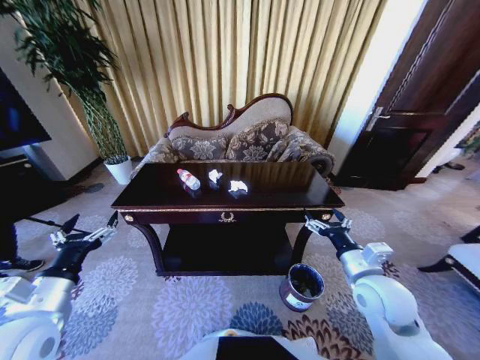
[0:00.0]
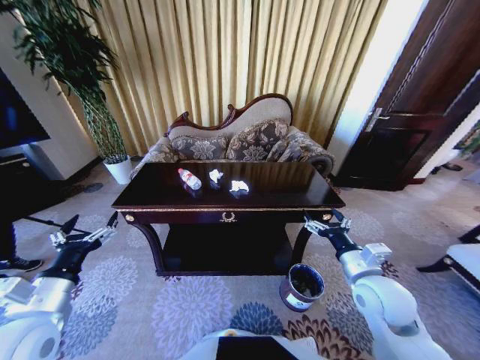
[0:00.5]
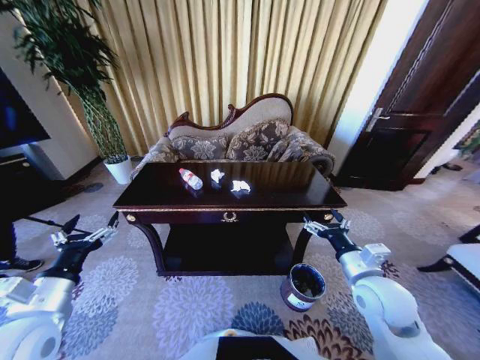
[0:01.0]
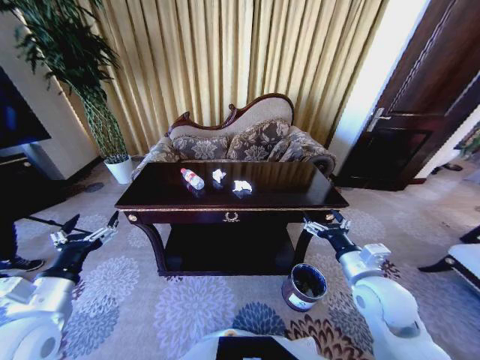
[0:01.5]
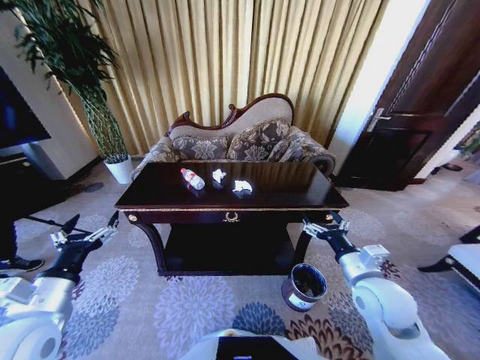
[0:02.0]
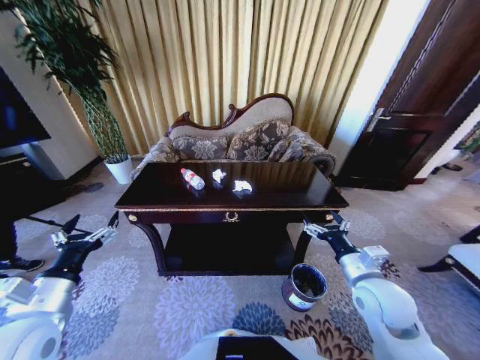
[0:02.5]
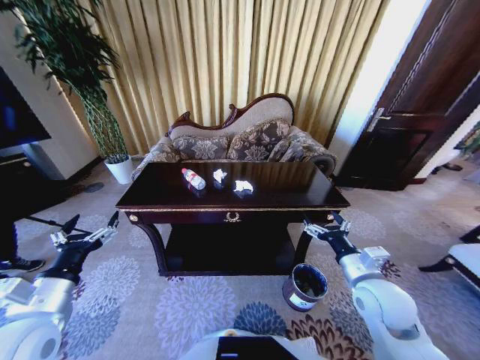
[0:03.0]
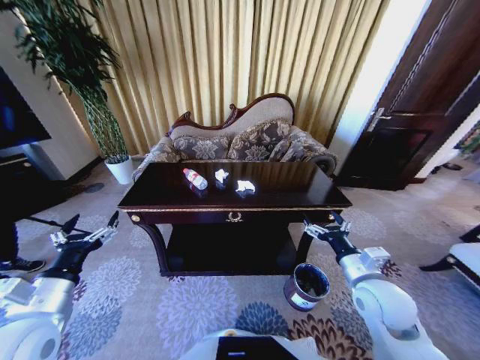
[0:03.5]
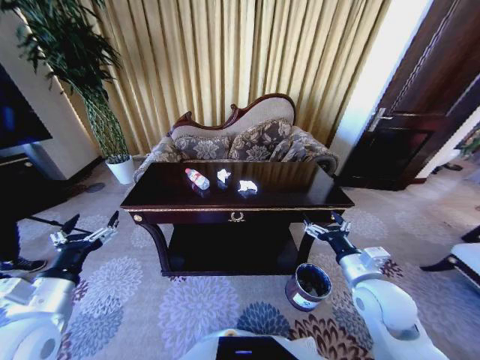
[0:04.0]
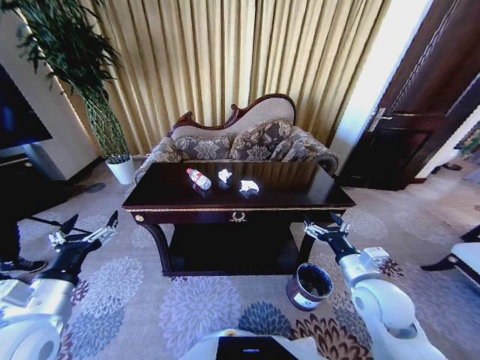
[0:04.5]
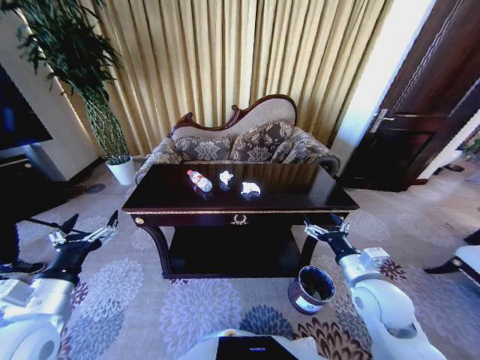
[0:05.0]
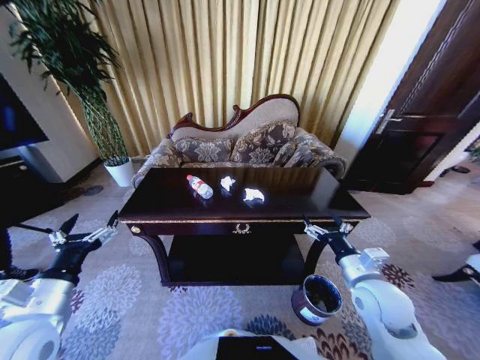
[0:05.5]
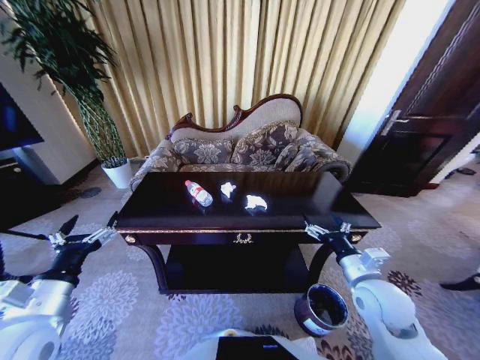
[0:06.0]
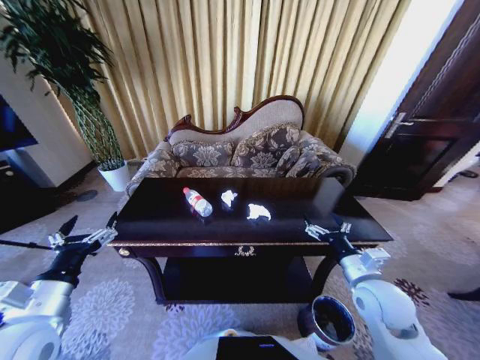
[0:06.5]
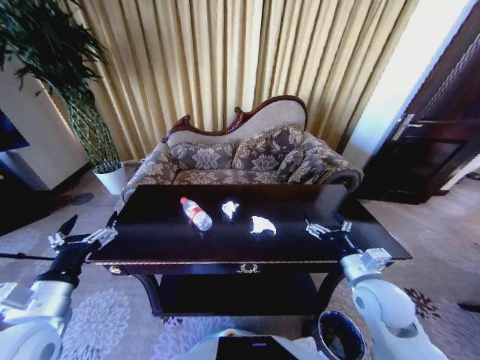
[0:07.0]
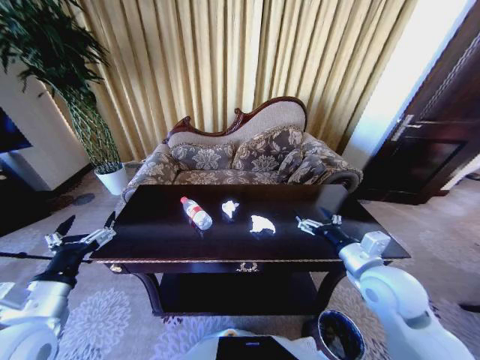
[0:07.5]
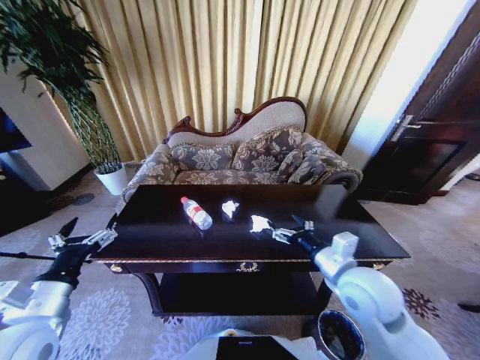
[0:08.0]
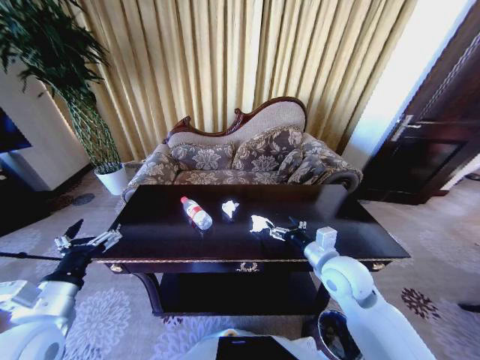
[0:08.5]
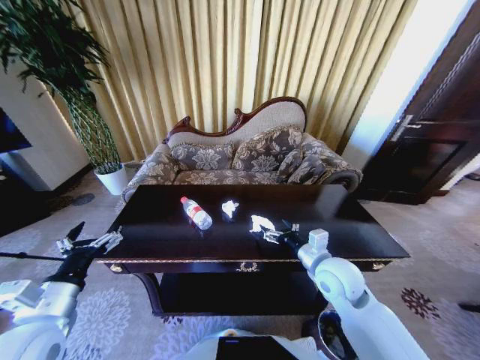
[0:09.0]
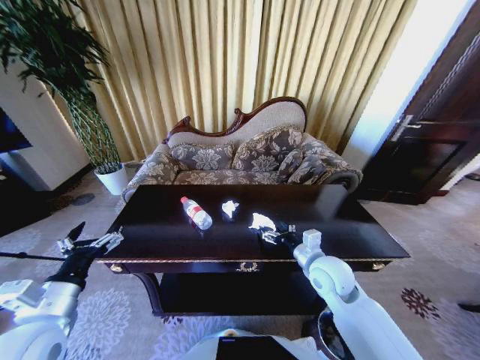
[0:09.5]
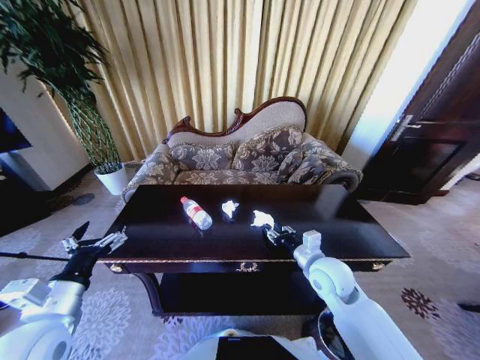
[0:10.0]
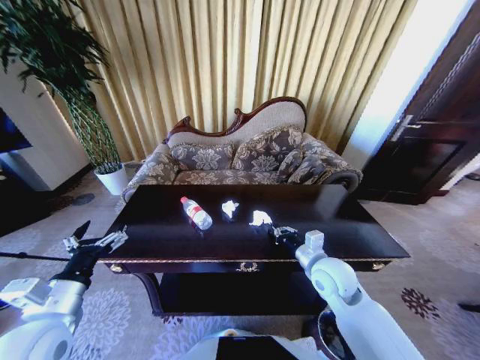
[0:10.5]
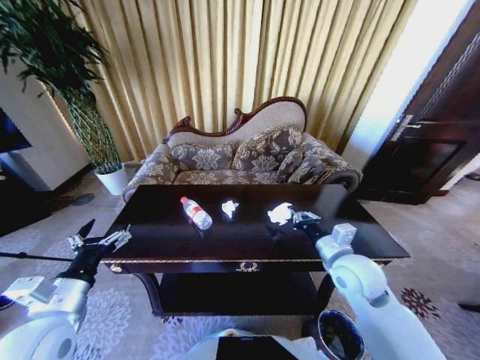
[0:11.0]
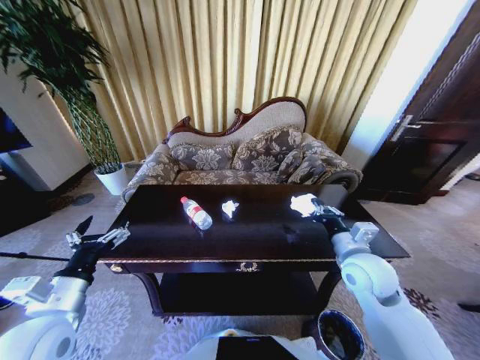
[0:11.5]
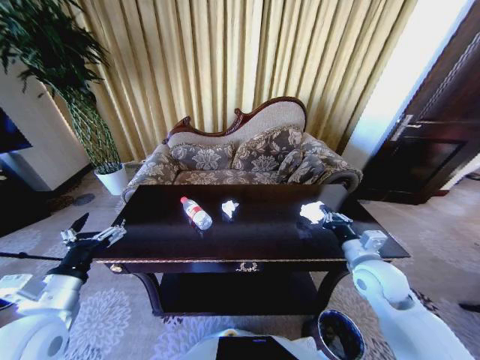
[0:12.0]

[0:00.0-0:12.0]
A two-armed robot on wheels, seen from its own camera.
Task of the whole recording: Move to the front of the table and place the trash on the table into the trash bin.
0:00.0 to 0:04.0: Both grippers stay put.
0:06.0 to 0:08.0: The right gripper moves to the left and upward, roughly 10 cm.
0:08.0 to 0:10.0: The right gripper heads downward and forward, covering some 10 cm, and closes.
0:10.0 to 0:12.0: The right gripper travels to the right by some 10 cm, and closes.

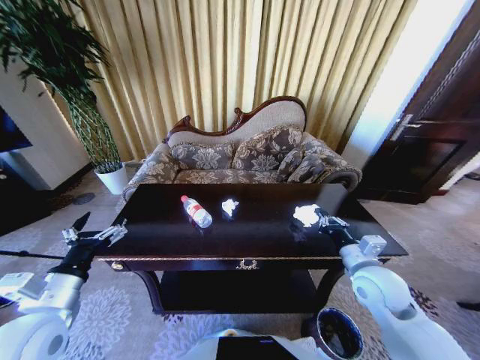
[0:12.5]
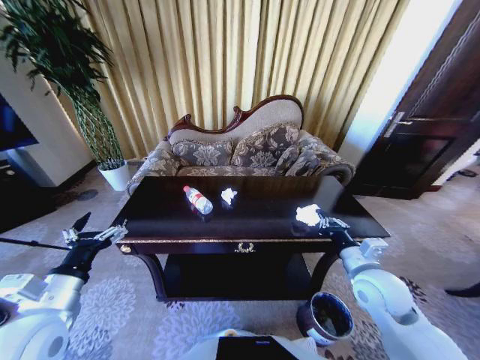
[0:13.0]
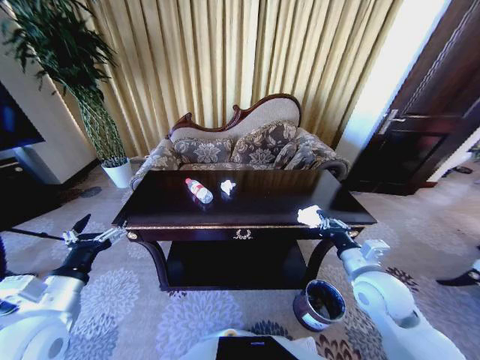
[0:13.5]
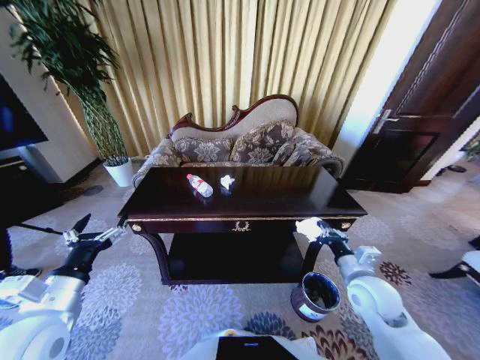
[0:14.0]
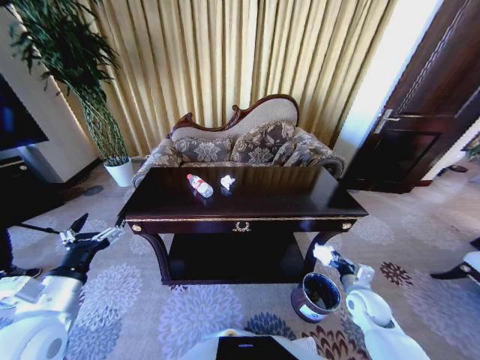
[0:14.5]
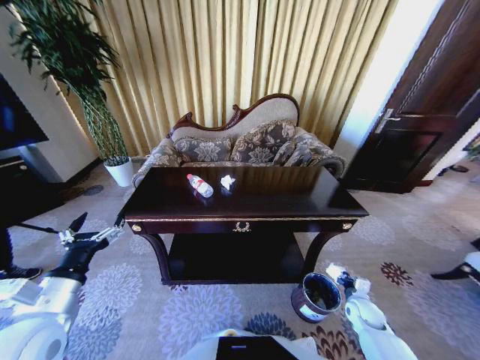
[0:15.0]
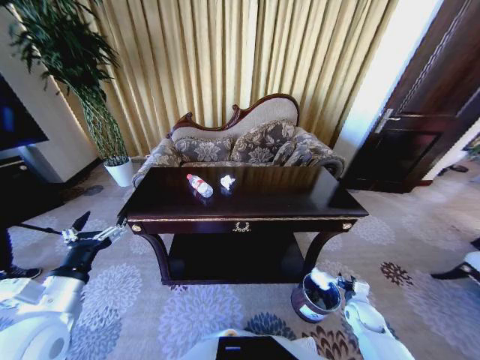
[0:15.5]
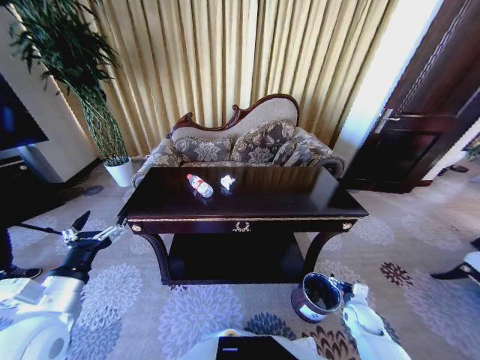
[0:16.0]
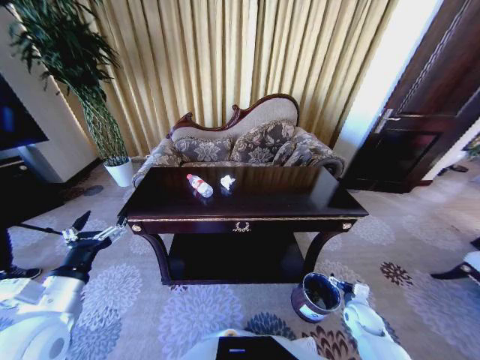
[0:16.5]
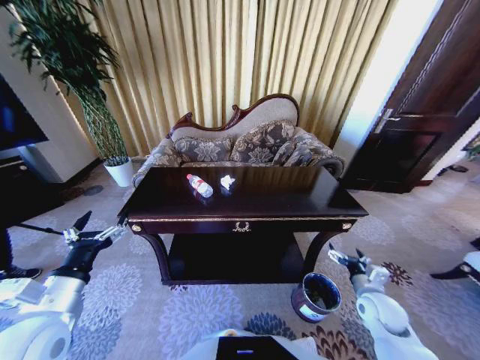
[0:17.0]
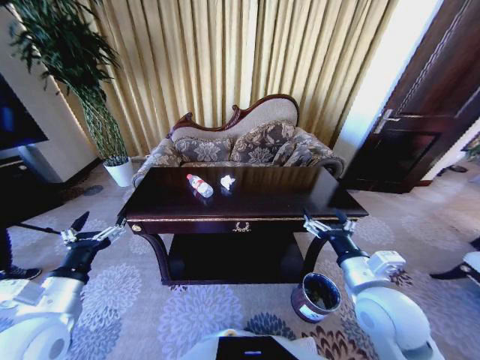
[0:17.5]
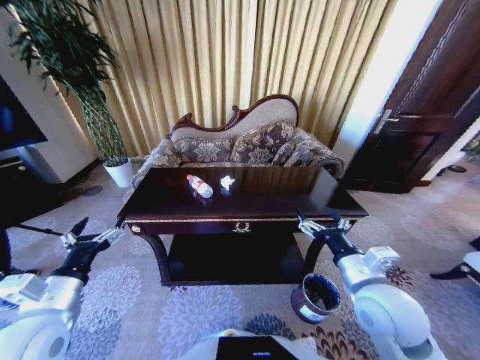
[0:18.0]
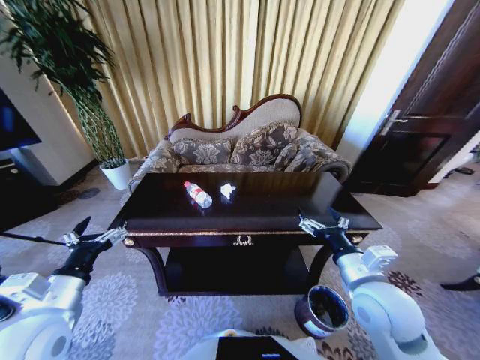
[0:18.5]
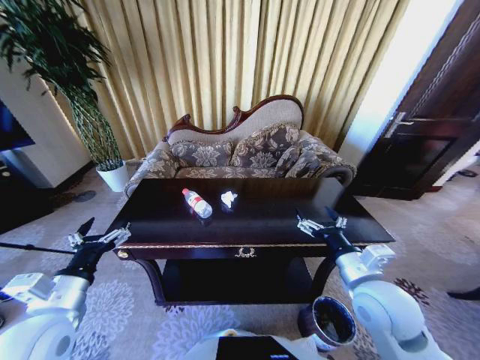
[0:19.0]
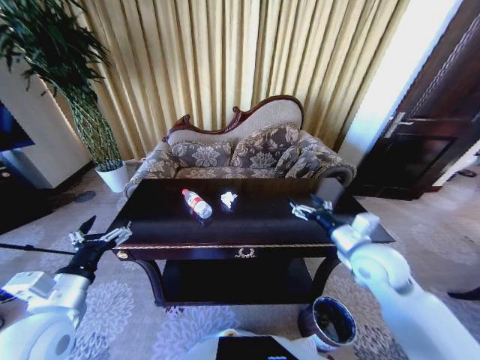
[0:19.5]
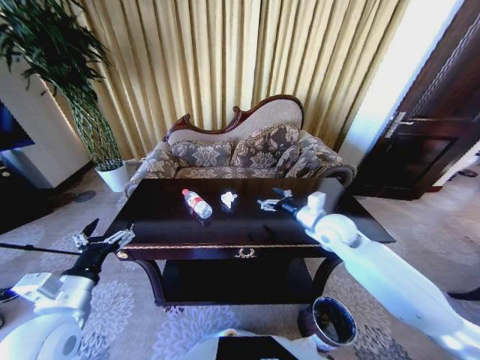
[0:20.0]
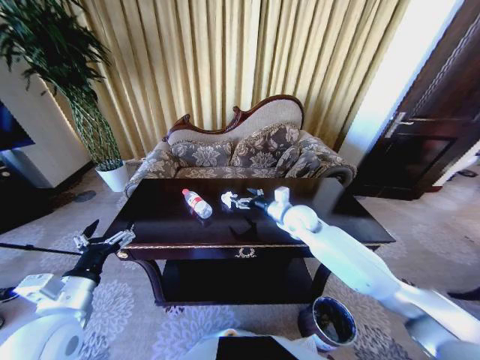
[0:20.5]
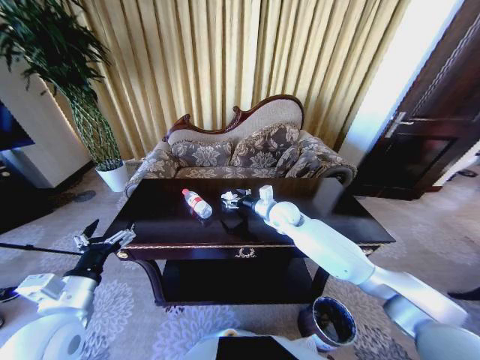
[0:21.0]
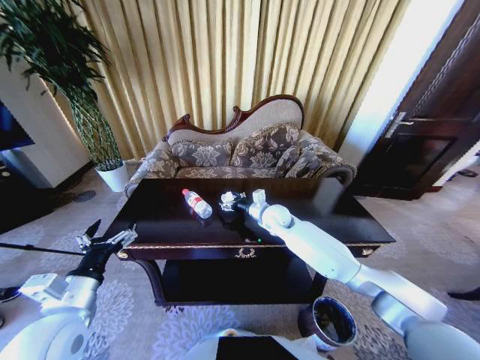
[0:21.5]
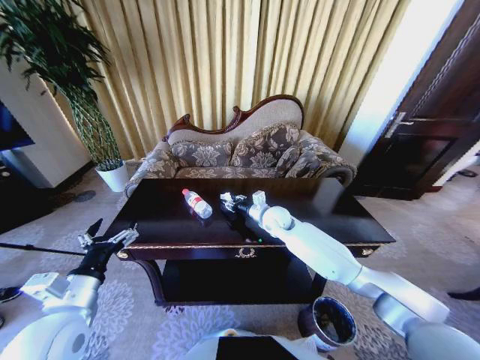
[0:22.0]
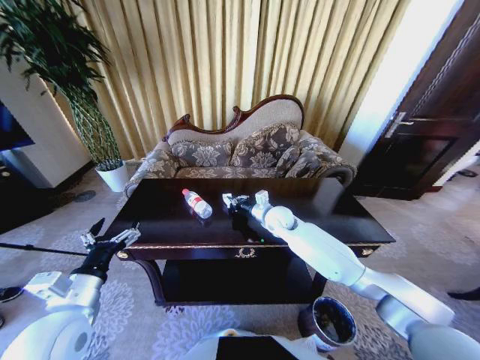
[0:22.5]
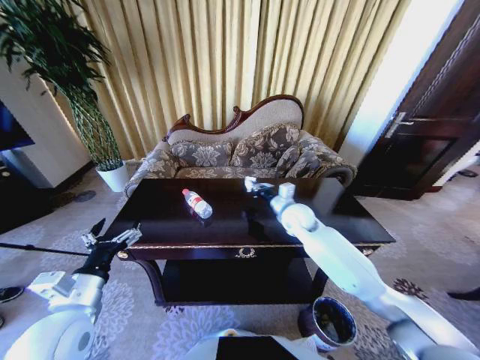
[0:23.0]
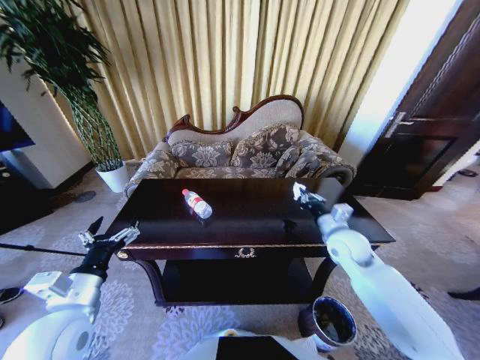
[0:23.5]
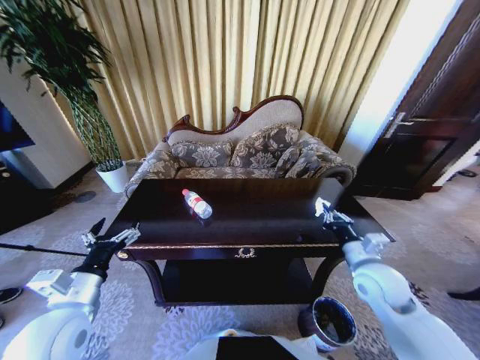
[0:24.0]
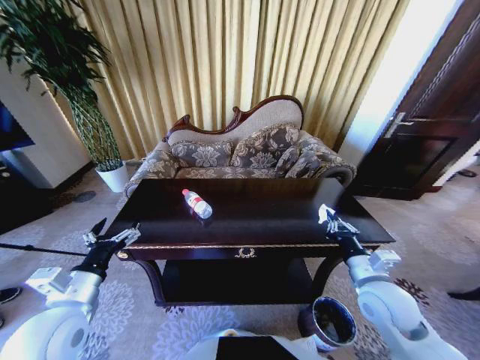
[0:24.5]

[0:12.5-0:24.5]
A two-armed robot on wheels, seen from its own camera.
Task of the whole recording: Move to the front of the table and place the trash on the table into the trash bin.
0:12.5 to 0:14.5: The right gripper heads downward and to the right, covering some 15 cm.
0:14.5 to 0:16.5: The right gripper travels downward by roughly 10 cm, and opens.
0:16.5 to 0:18.5: The right gripper travels upward and to the left by roughly 35 cm.
0:18.5 to 0:20.5: The right gripper shifts roughly 25 cm forward.
0:20.5 to 0:22.5: The right gripper ends up about 5 cm from where it was, and closes up.
0:22.5 to 0:24.5: The right gripper is displaced backward and to the right by roughly 30 cm.

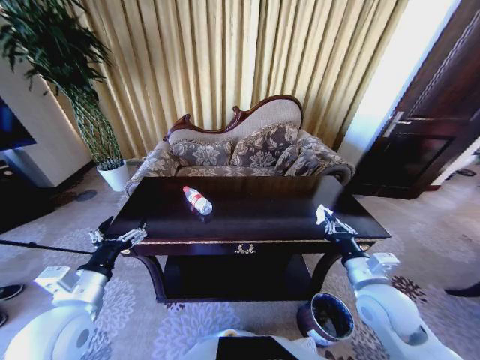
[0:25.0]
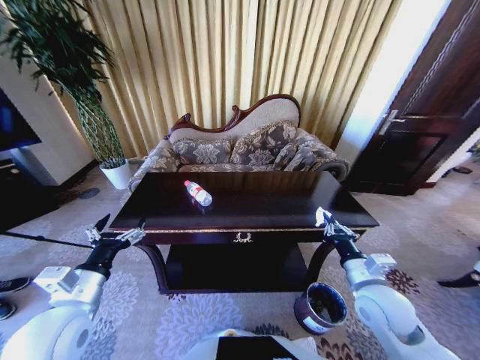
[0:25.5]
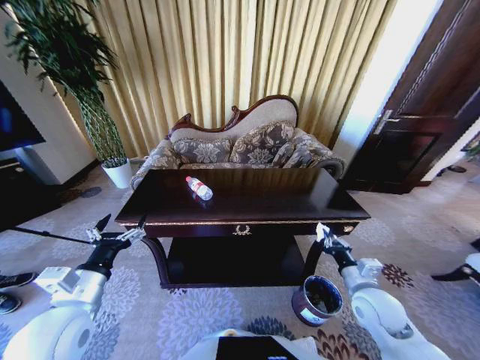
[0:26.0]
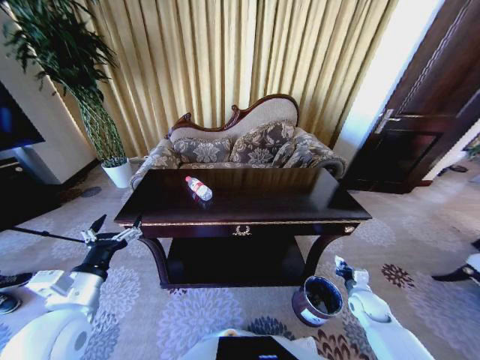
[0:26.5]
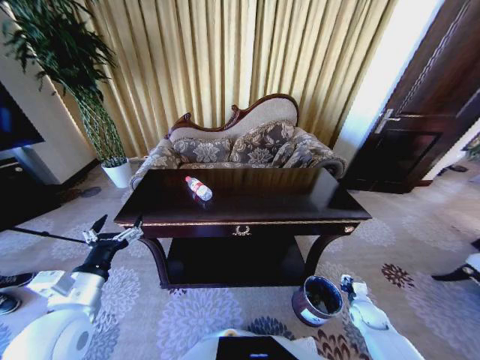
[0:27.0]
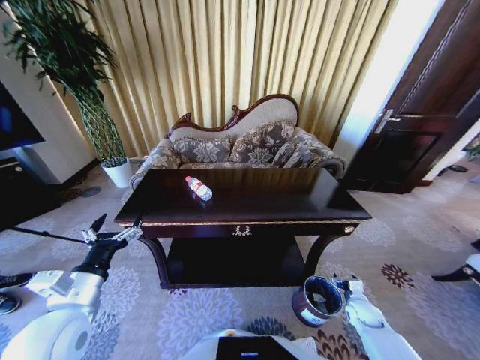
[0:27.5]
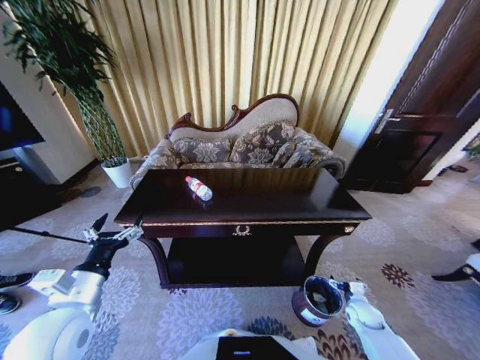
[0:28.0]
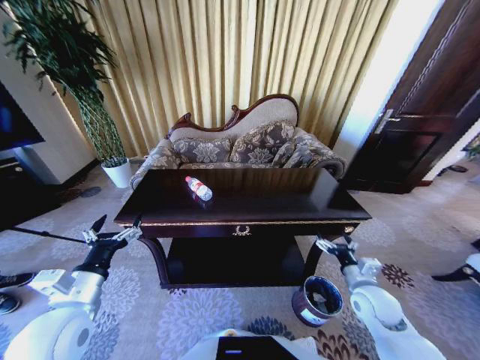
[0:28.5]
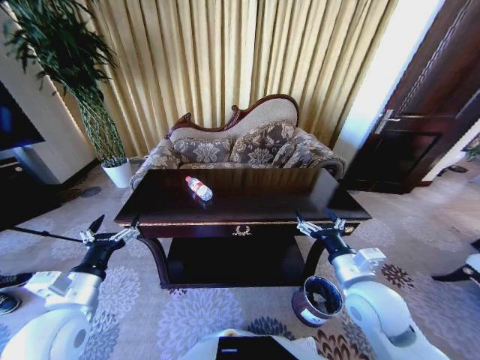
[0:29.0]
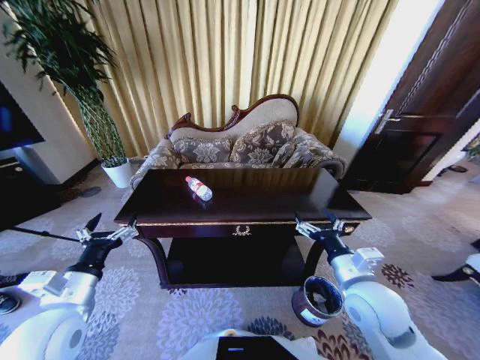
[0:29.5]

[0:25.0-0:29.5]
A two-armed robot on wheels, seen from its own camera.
Task of the whole recording: Move to the front of the table and place the trash on the table into the trash bin.
0:25.0 to 0:27.0: The right gripper shifts some 30 cm downward and to the right.
0:27.0 to 0:29.5: The right gripper is displaced upward and to the left by approximately 35 cm, and opens.
